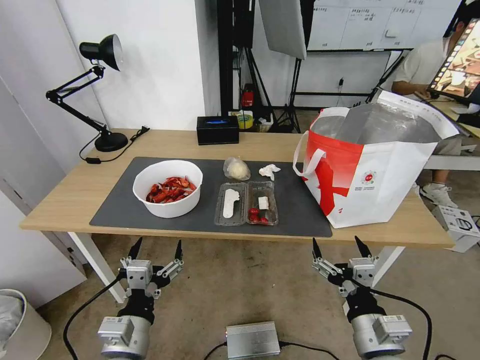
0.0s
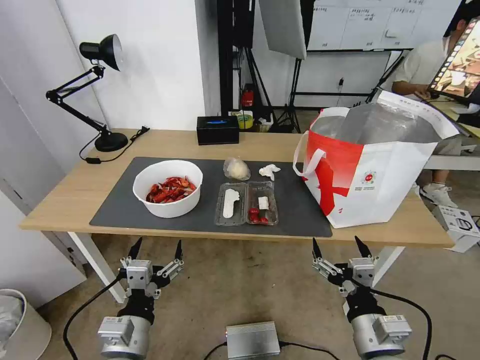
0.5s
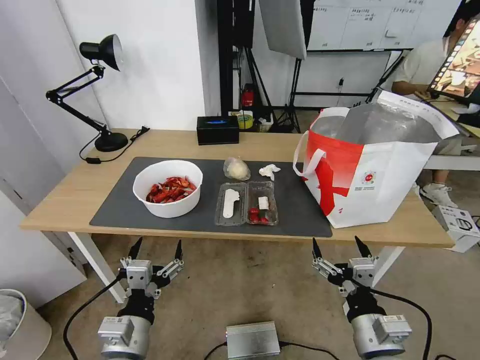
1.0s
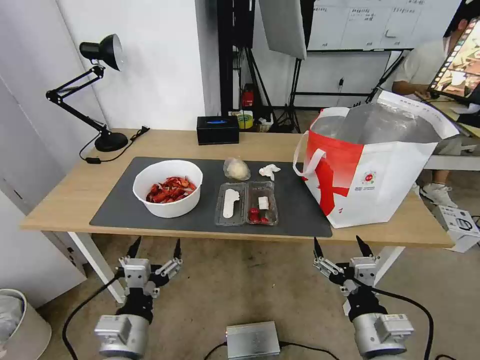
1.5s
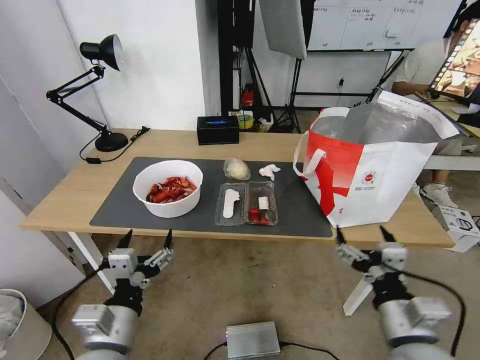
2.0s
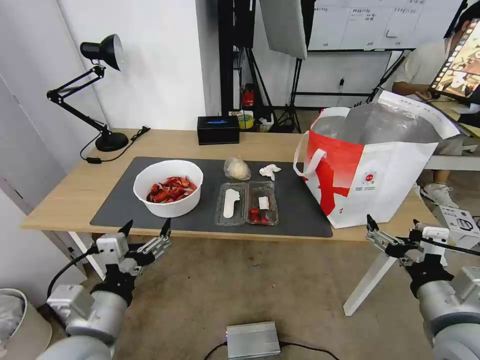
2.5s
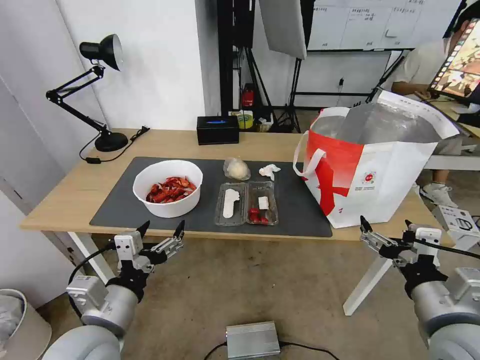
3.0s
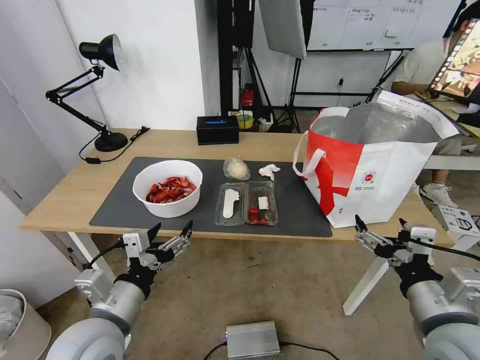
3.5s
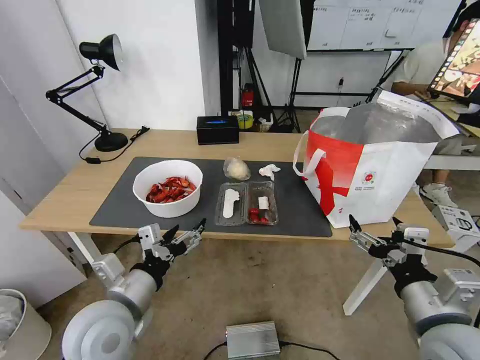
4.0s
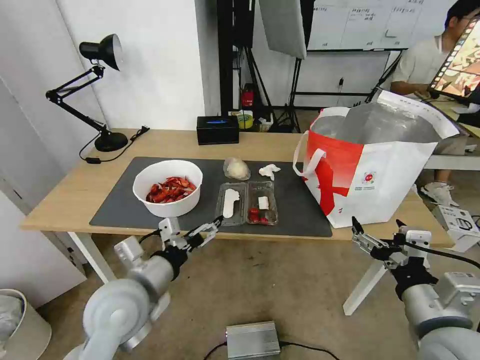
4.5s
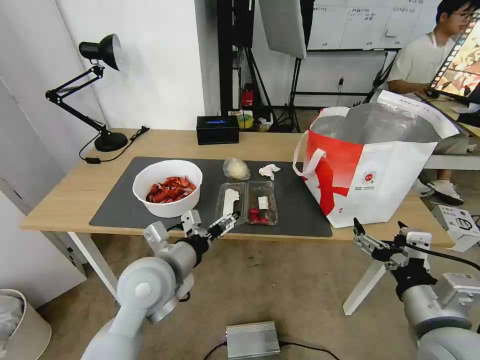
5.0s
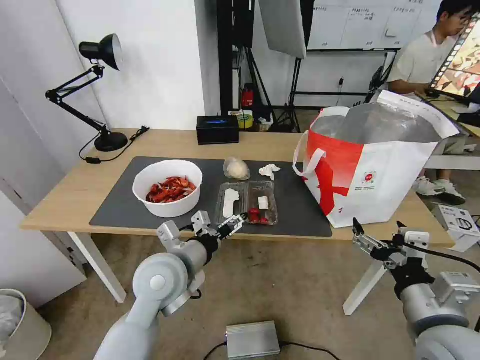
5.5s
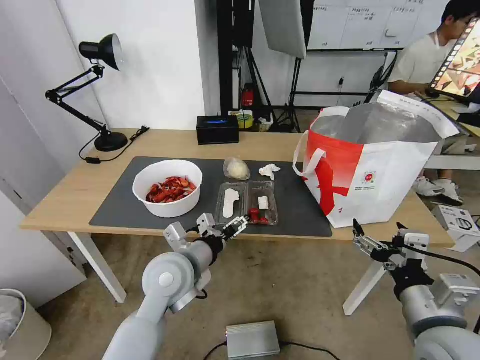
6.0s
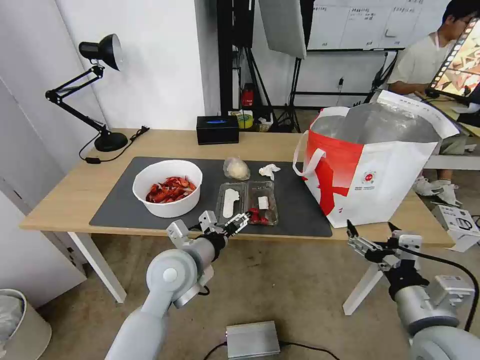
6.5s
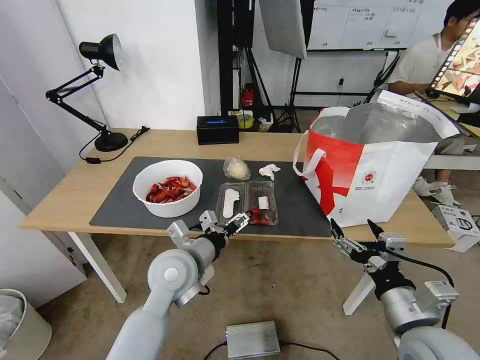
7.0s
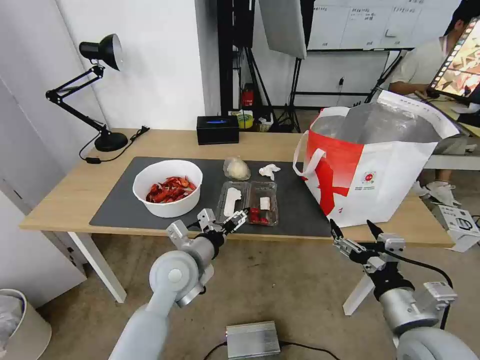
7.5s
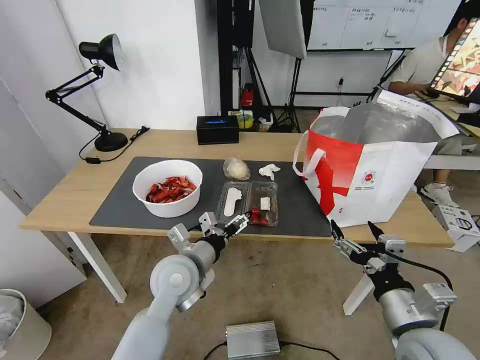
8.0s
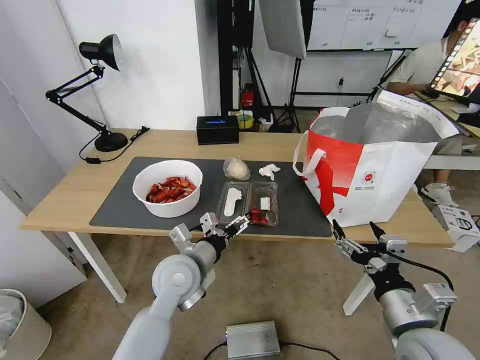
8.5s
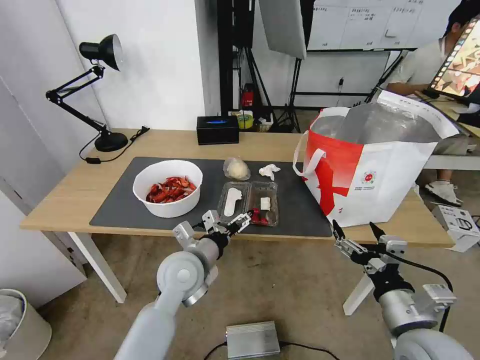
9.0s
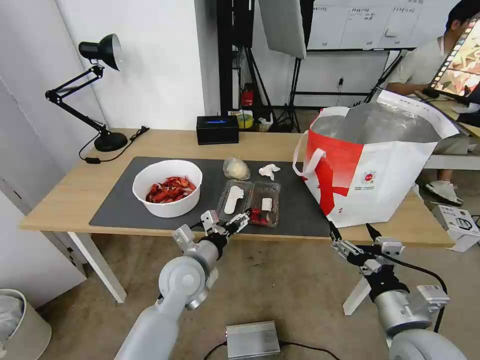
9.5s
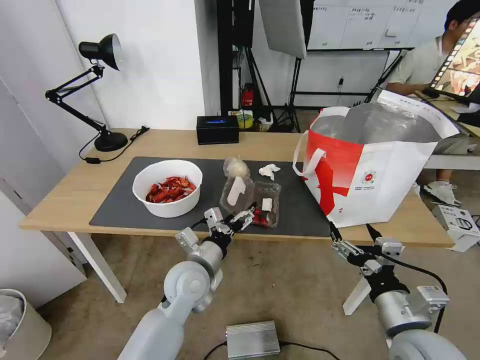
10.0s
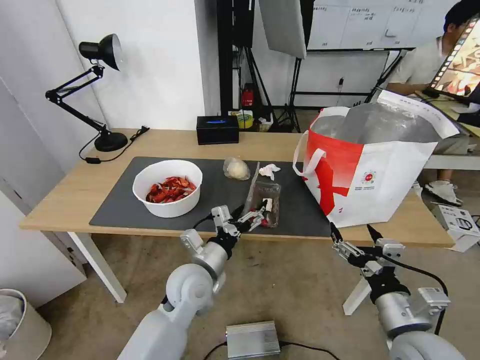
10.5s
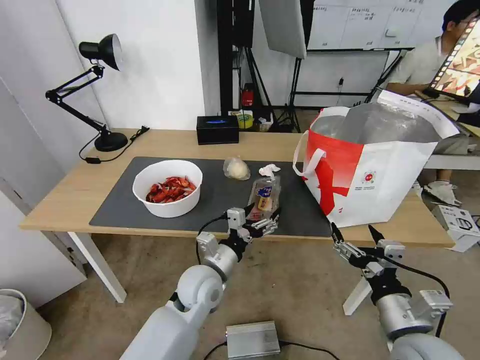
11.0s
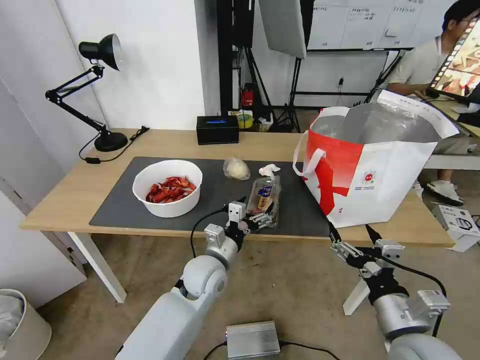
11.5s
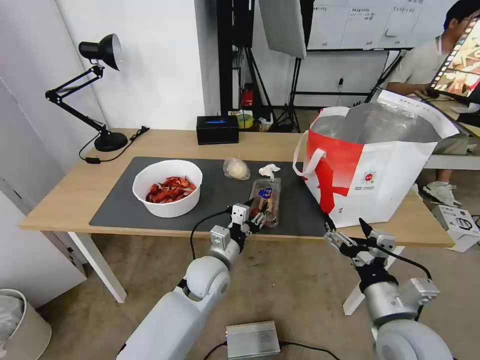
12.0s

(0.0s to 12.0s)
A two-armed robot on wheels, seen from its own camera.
Task of the whole recording: Pick up the trash from the table and place it into the takeout bag.
2.0s - 4.0s: The left gripper travels forward and upward by some 10 cm. Meanwhile the right gripper moves upward, approximately 10 cm.
4.0s - 6.0s: The left gripper travels forward and to the right by approximately 15 cm.
6.0s - 8.0s: The grippers move only a little.
8.0s - 10.0s: The grippers stay close to where they were, moving slightly.
10.0s - 12.0s: The left gripper changes place by approximately 5 cm, and closes up.

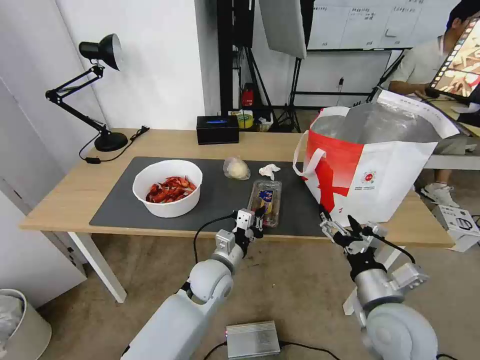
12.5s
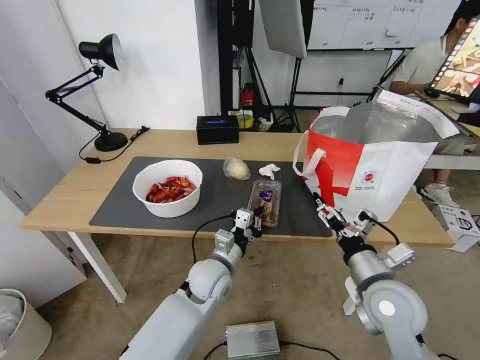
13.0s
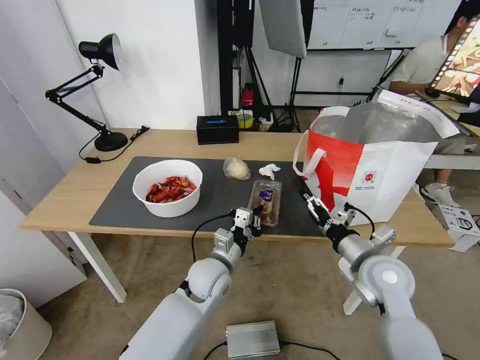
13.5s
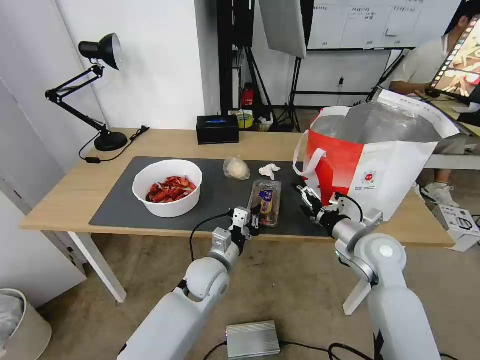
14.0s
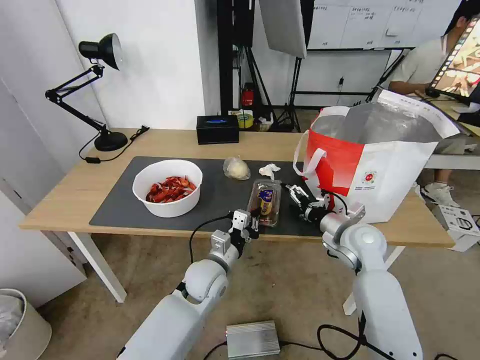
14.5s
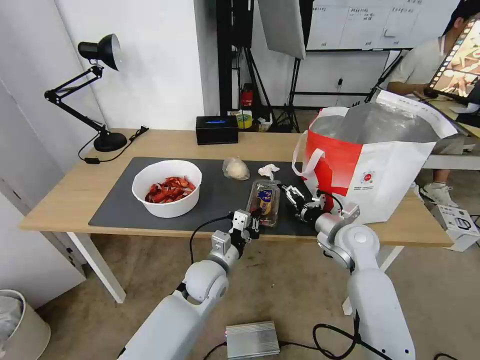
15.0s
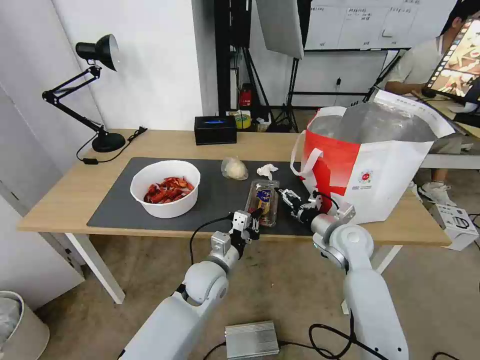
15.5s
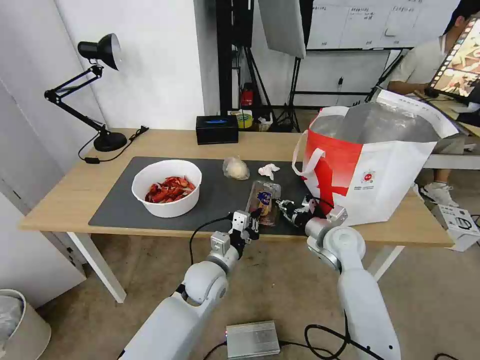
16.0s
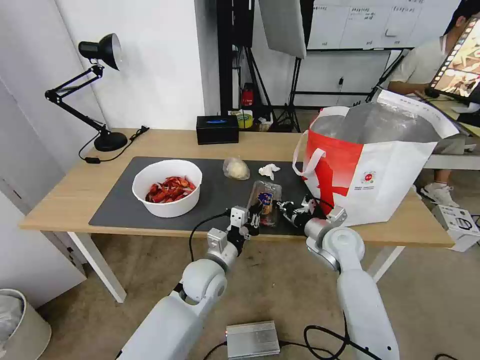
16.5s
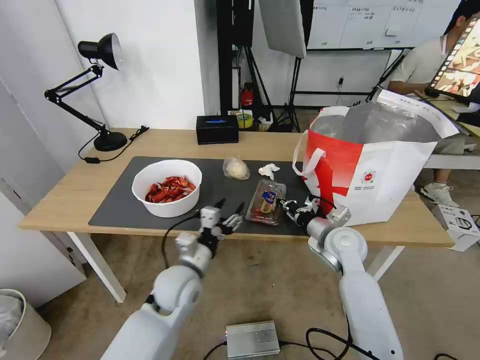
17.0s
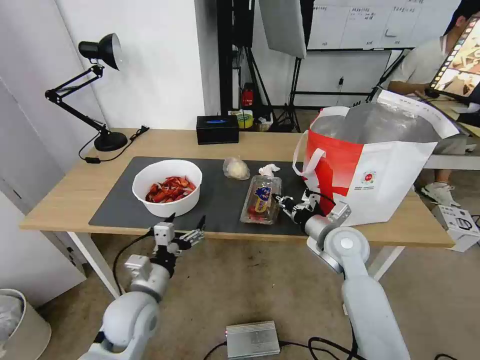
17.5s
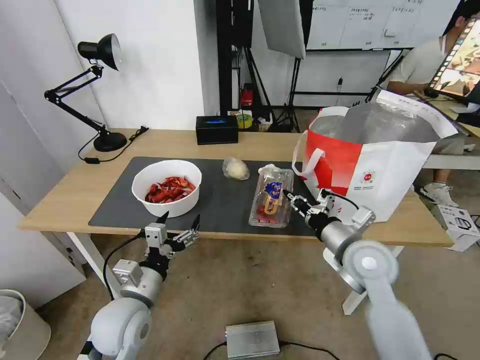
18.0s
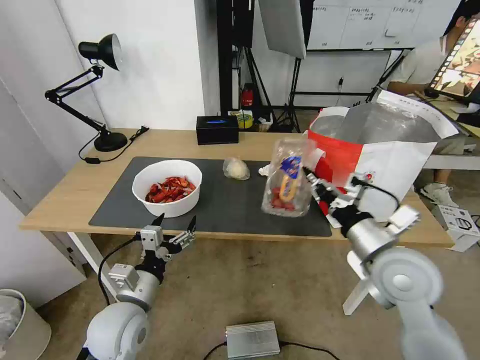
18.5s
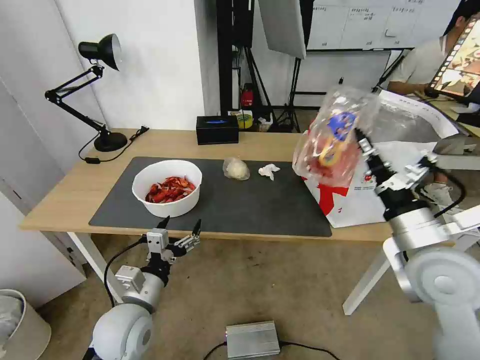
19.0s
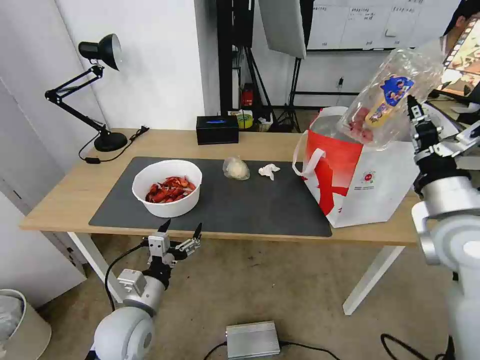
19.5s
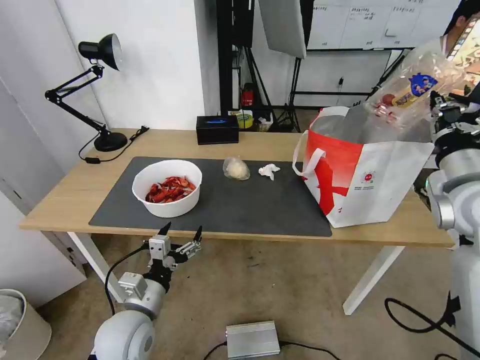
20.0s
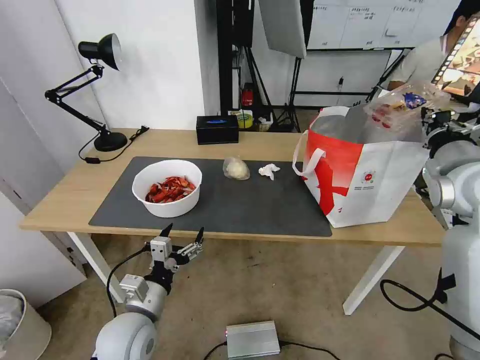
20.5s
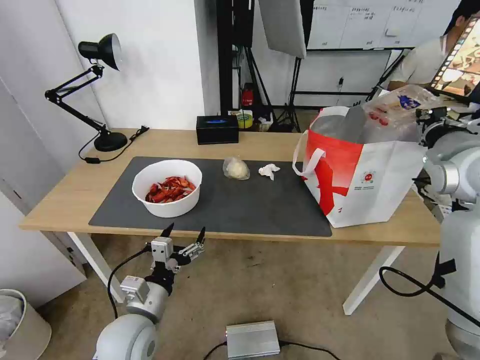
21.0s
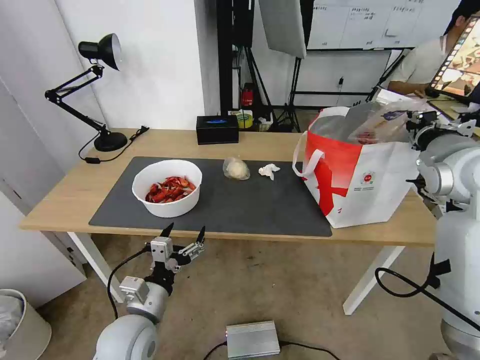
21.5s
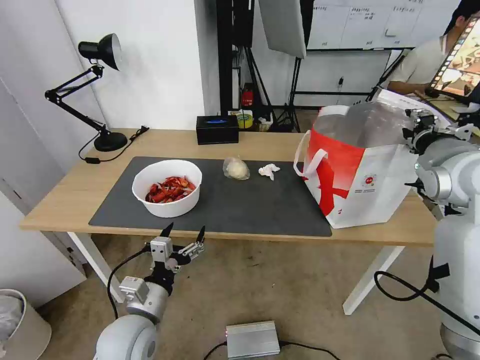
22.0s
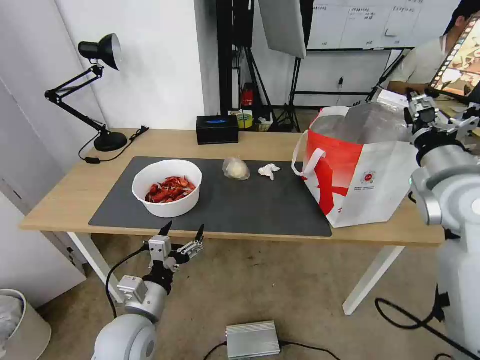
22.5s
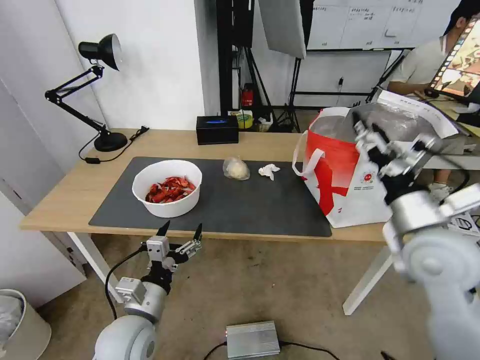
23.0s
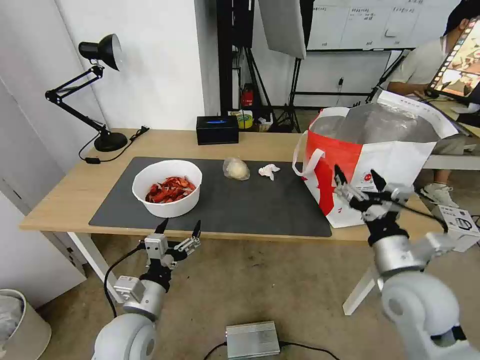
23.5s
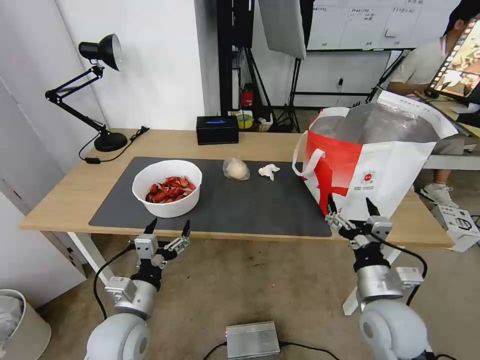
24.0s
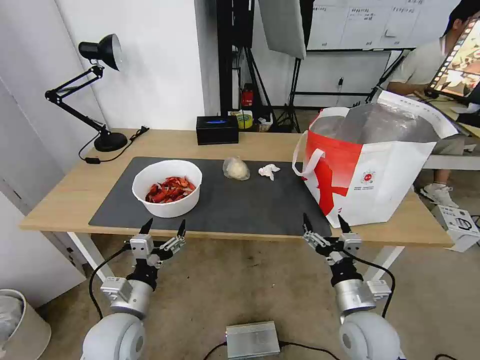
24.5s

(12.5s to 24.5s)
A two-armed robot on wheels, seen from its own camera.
Task of the whole recording: Pick up the trash from the table and place it into the takeout bag.
12.5s - 14.5s: The right gripper heads forward, covering some 20 cm.
14.5s - 16.5s: The right gripper closes its fingers.
16.5s - 18.5s: The left gripper travels to the left and backward by approximately 20 cm, and opens up. Meanwhile the right gripper goes roughly 20 cm backward and upward.
18.5s - 20.5s: The right gripper shifts roughly 20 cm to the right, upward and forward.
20.5s - 22.5s: The right gripper opens its fingers.
22.5s - 24.5s: The right gripper shifts about 30 cm downward, backward and to the left, and opens its fingers.

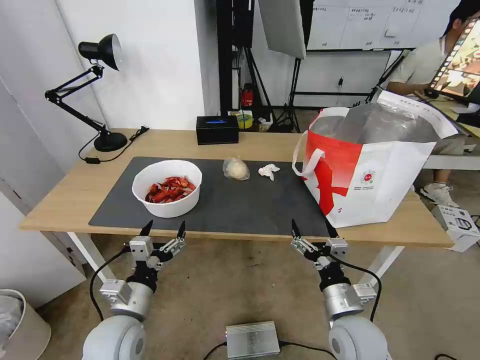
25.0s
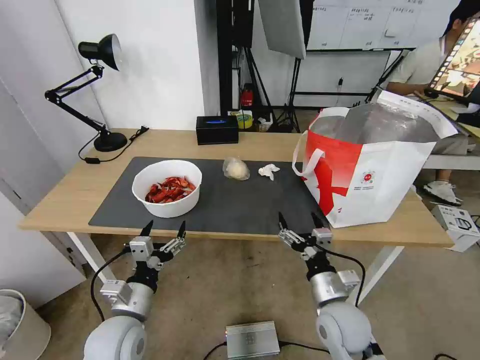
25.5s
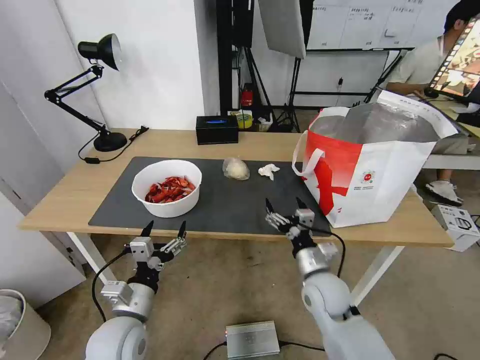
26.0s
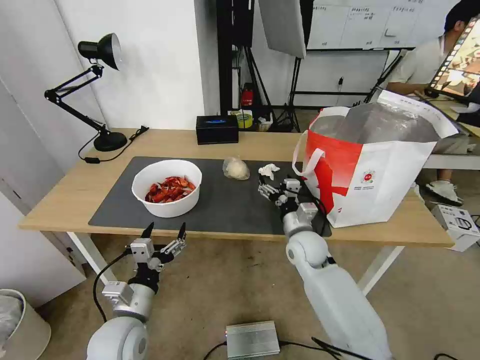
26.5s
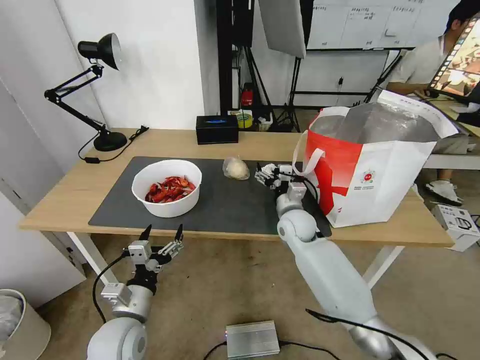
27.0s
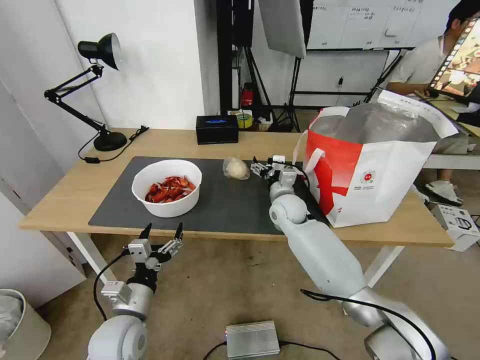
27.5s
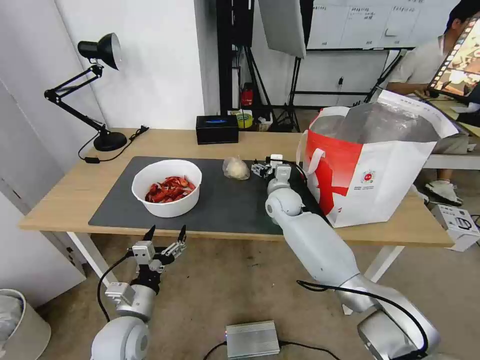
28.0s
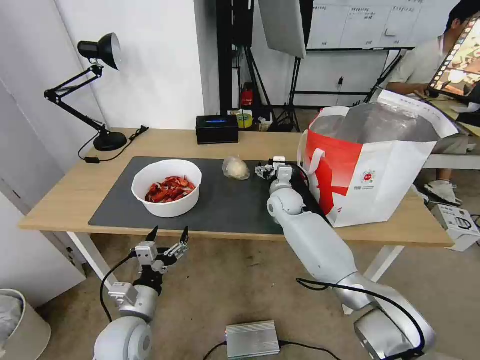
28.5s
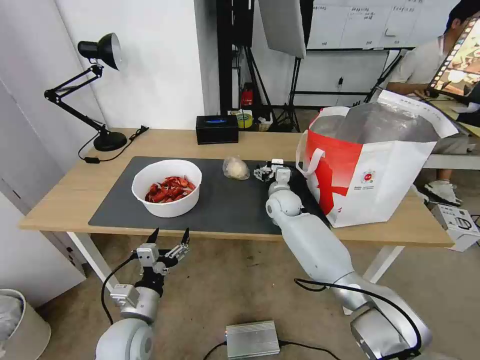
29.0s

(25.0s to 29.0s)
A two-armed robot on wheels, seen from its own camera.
Task of the whole recording: Pick up the trash from the table and place it into the takeout bag.
25.0s - 27.0s: The right gripper is displaced forward by roughly 25 cm.
27.0s - 29.0s: The right gripper moves forward, some 10 cm.
